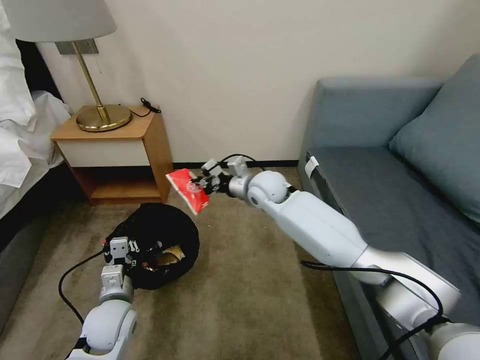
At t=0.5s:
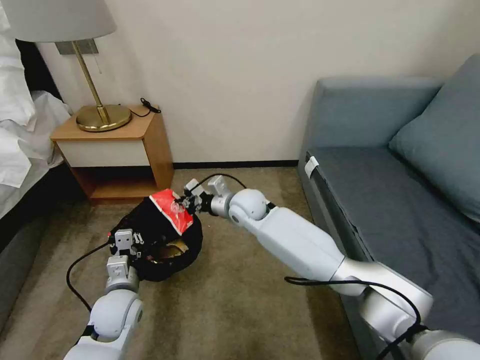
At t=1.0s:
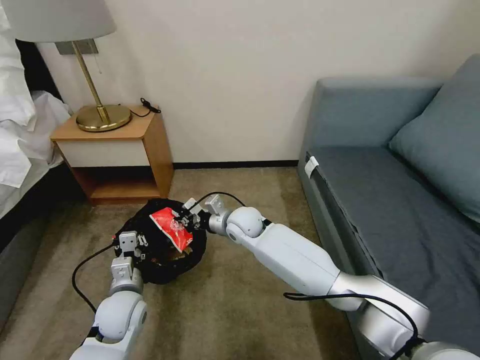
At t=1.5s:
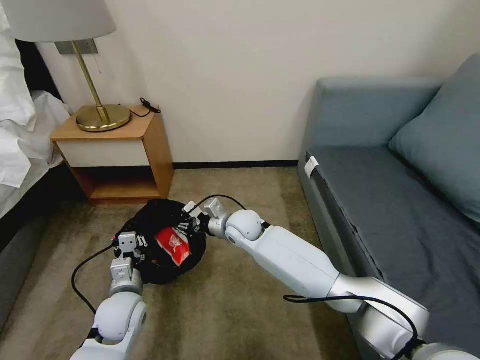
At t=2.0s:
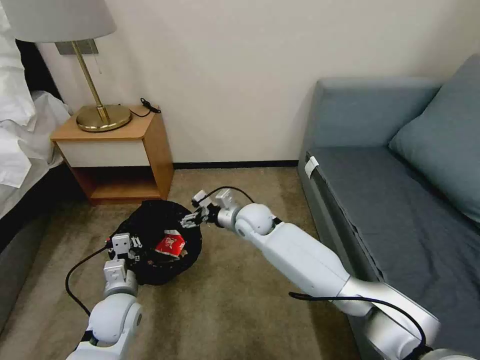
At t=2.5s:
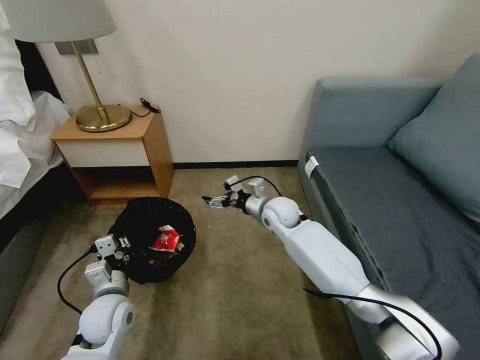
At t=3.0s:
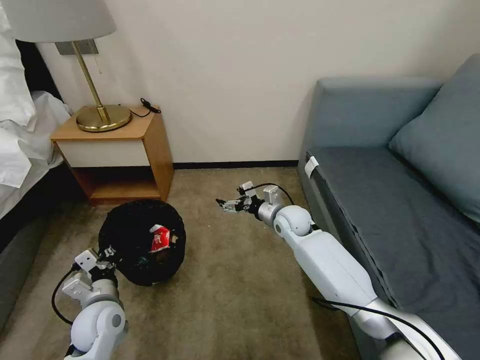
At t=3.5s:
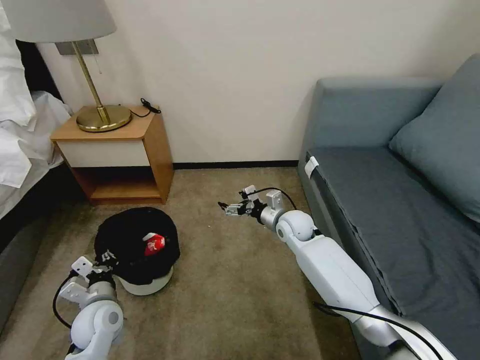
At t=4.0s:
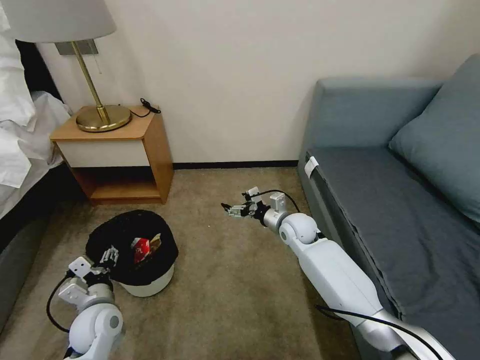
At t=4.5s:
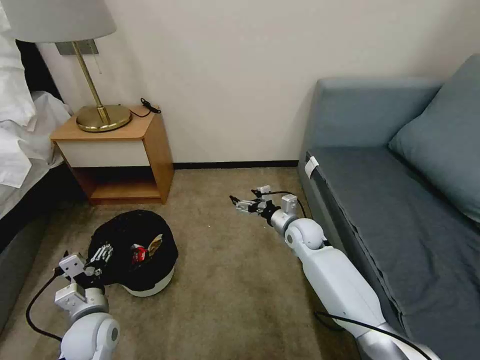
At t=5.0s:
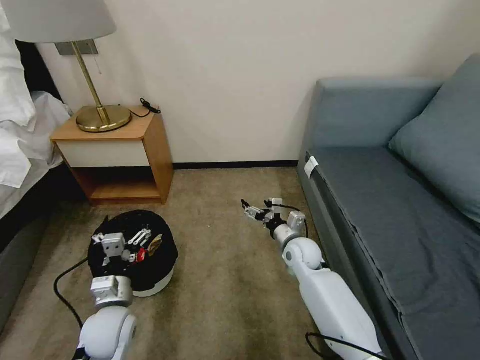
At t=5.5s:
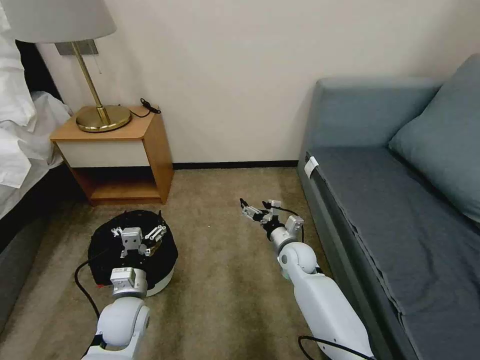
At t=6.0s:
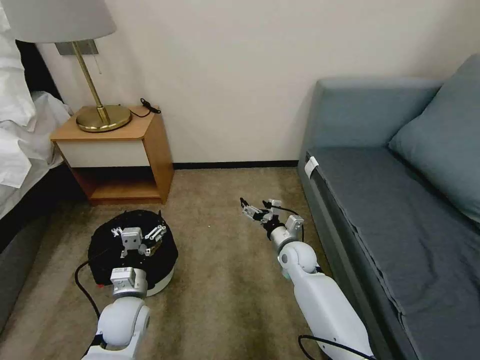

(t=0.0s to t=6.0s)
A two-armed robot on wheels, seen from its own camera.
Task of the whole recording: Pick up the trash bin, then pick up the garbage on the floor and place it into the trash bin.
t=0.0s - t=2.0s: The right gripper moves downward, roughly 10 cm, and opens its fingers.
t=2.0s - t=4.0s: The right gripper travels to the right by approximately 15 cm, while the left gripper changes place by roughly 5 cm, and opens up.
t=4.0s - t=6.0s: The right gripper goes about 10 cm backward and downward; the left gripper travels to the right by about 5 cm.

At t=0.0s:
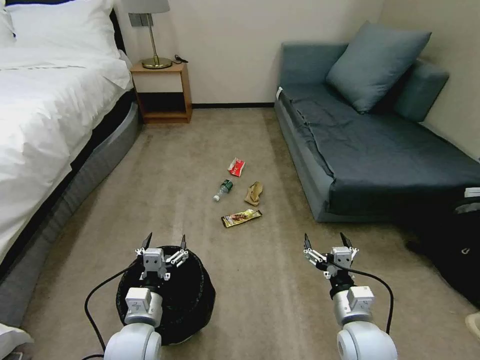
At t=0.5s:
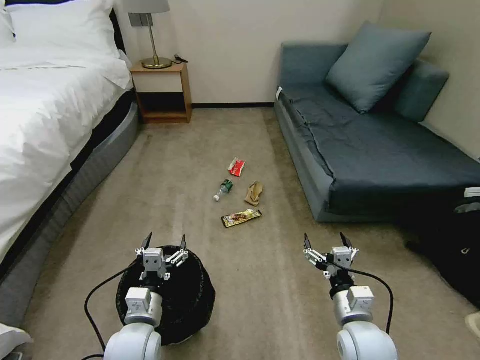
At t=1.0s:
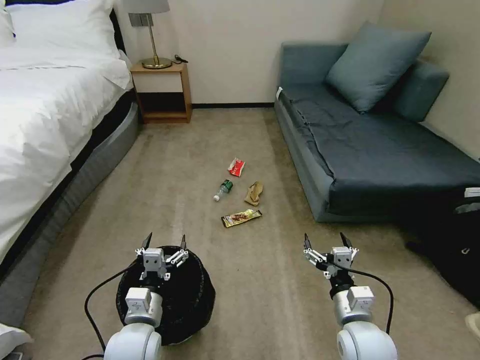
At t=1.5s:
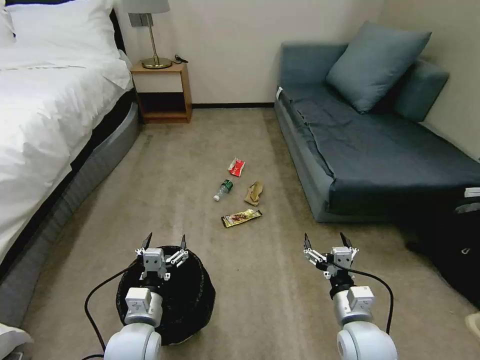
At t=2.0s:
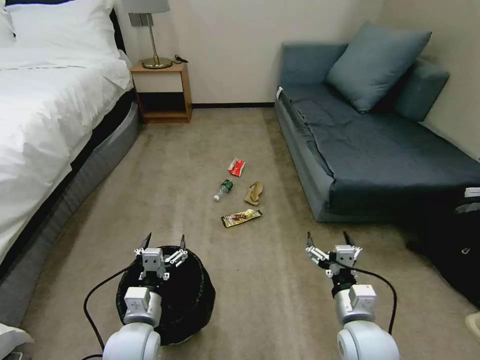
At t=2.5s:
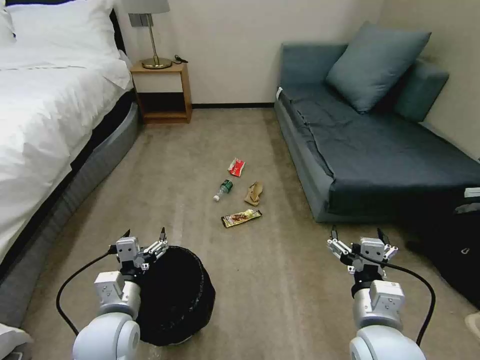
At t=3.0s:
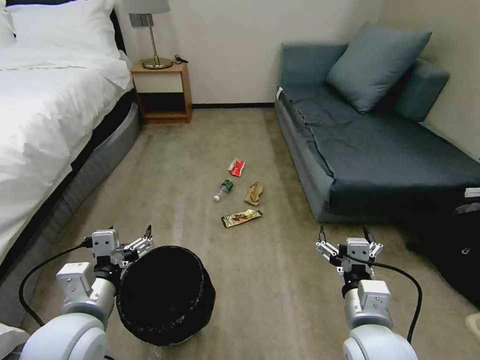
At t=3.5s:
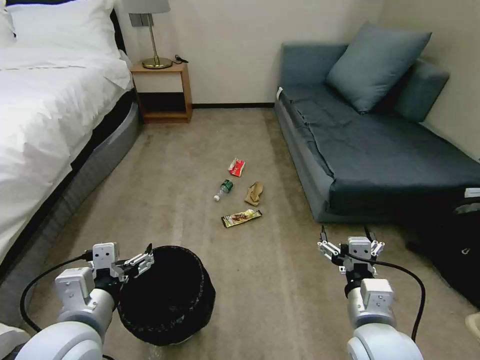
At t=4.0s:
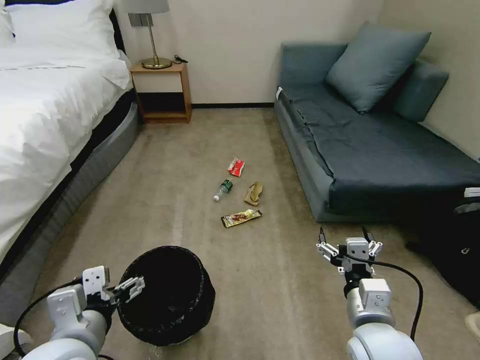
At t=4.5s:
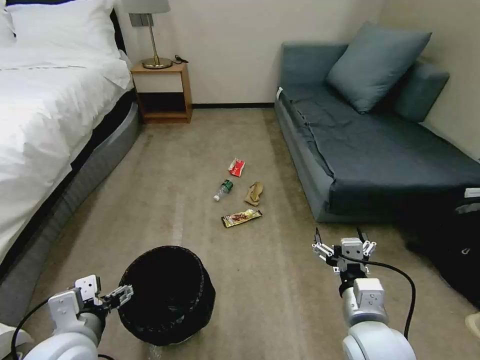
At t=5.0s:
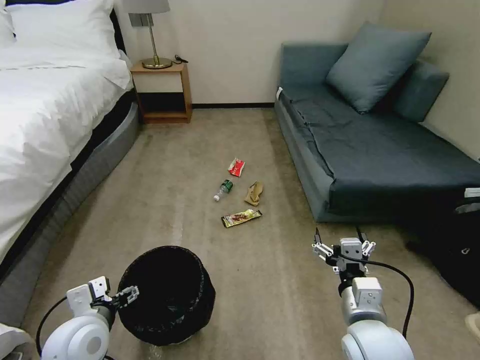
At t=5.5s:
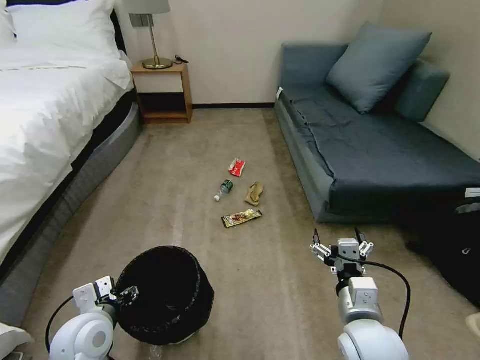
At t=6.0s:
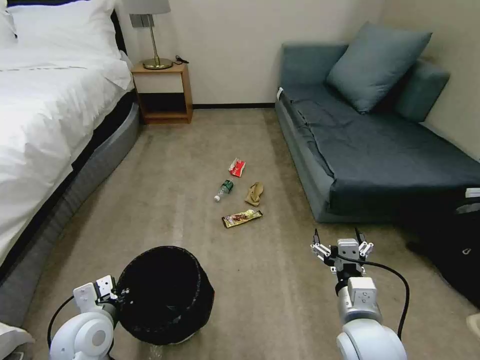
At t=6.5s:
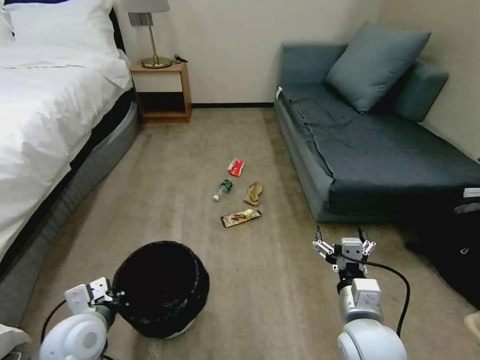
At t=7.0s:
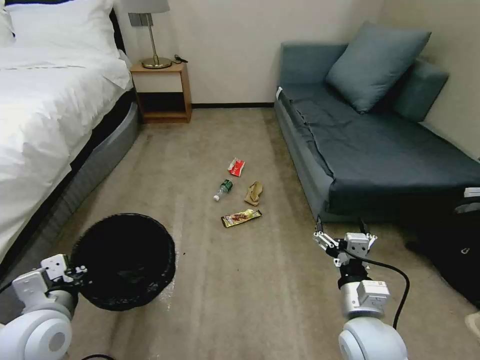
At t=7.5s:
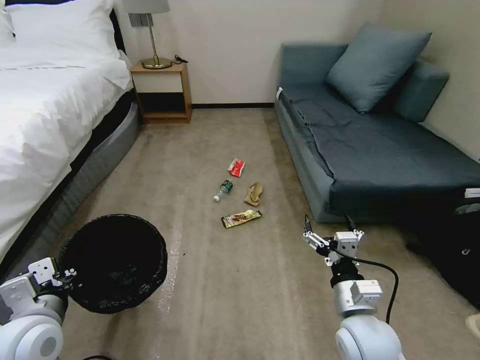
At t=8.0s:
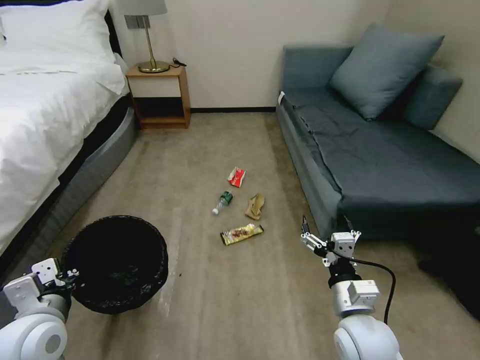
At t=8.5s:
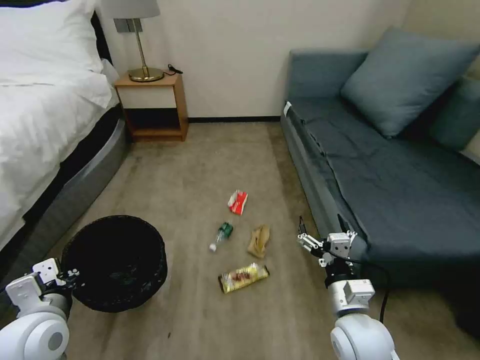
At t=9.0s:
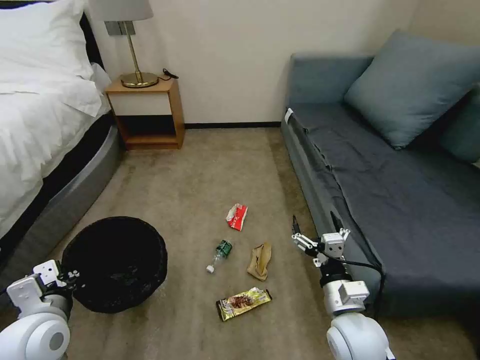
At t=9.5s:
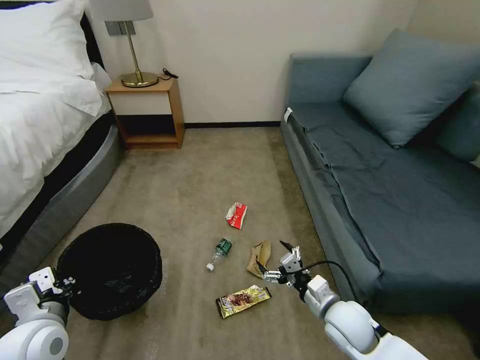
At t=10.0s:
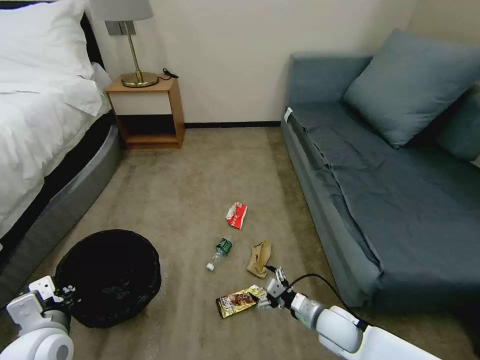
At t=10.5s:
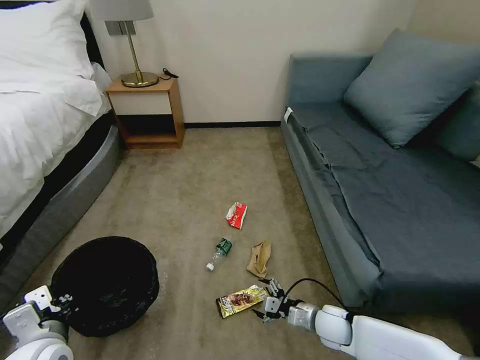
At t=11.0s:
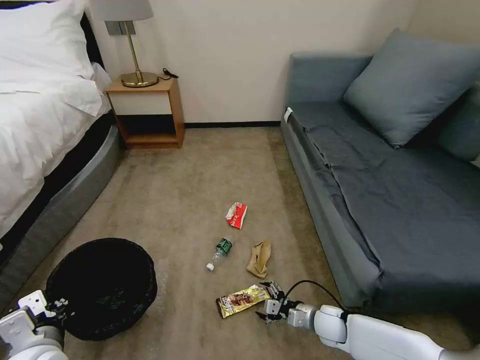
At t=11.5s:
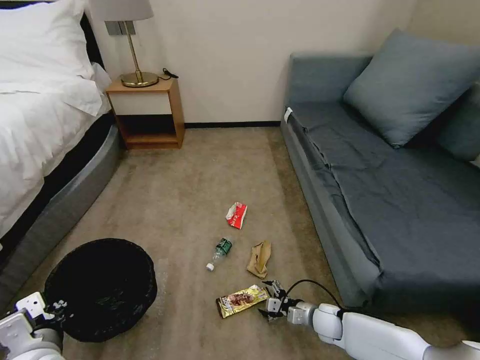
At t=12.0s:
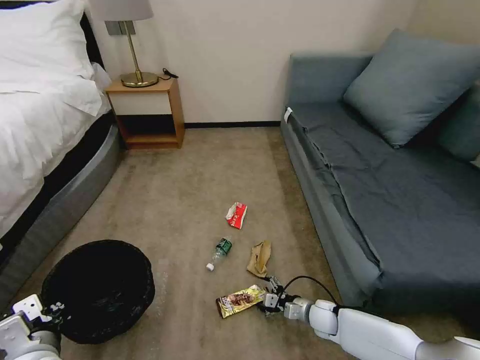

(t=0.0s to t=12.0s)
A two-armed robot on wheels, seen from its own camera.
Task of the whole recording: Pick up the trash bin, then pick up the garbage on the floor and place it into the trash bin.
t=2.0s - t=4.0s: The right gripper shifts some 10 cm upward. Meanwhile the left gripper is displaced upward by approximately 15 cm.
t=4.0s - t=6.0s: The left gripper shifts about 15 cm downward and forward, and closes its fingers.
t=6.0s - t=8.0s: The left gripper is displaced upward by roughly 10 cm.
t=8.0s - t=10.0s: The right gripper travels downward by approximately 15 cm.
t=10.0s - t=12.0s: The right gripper is displaced downward and forward by some 15 cm.

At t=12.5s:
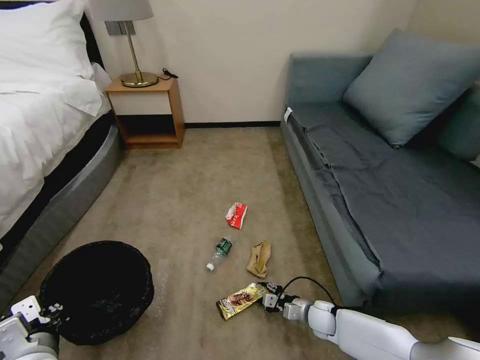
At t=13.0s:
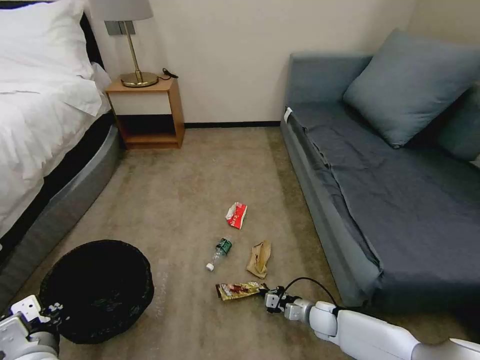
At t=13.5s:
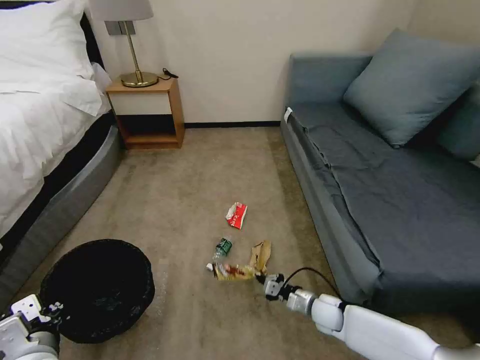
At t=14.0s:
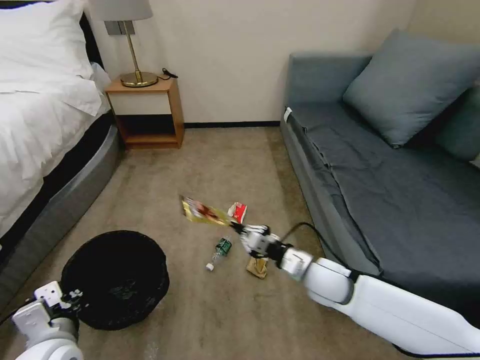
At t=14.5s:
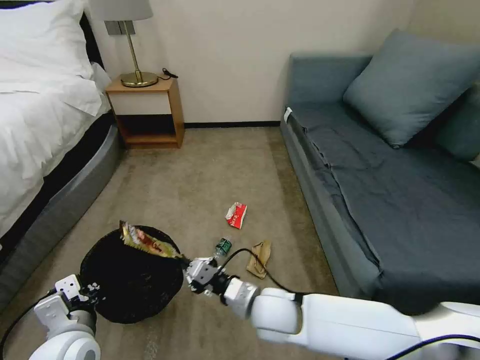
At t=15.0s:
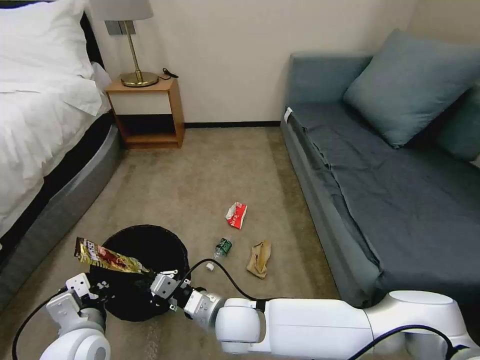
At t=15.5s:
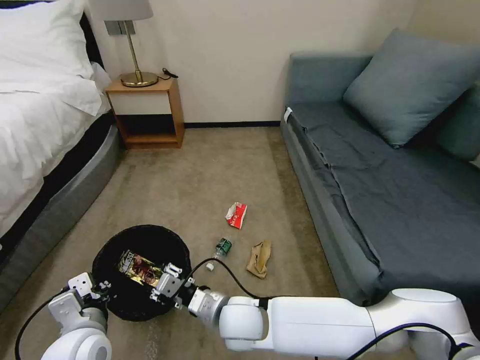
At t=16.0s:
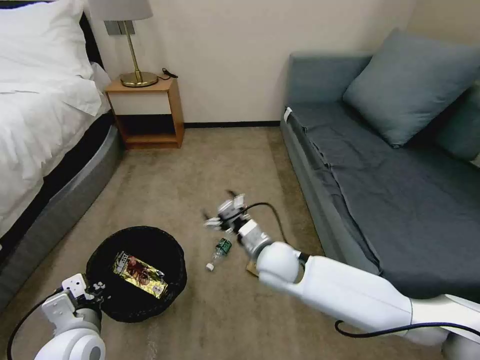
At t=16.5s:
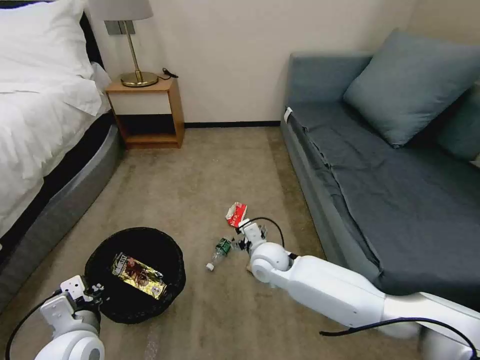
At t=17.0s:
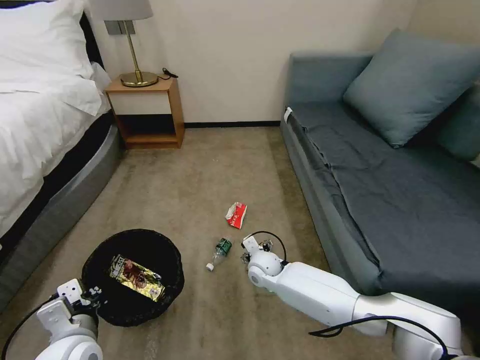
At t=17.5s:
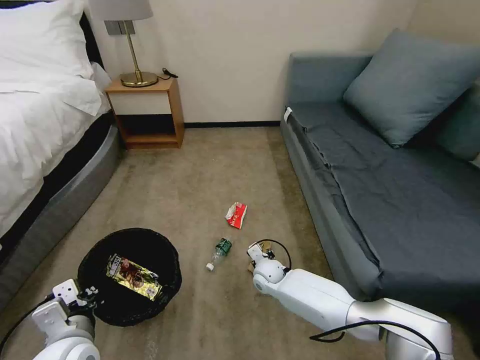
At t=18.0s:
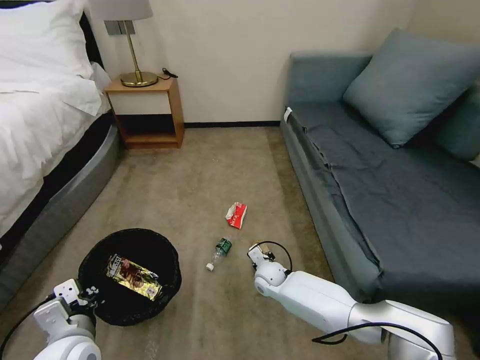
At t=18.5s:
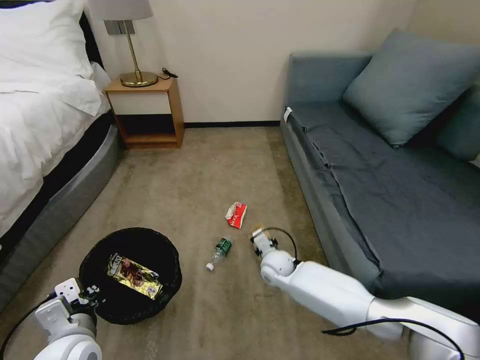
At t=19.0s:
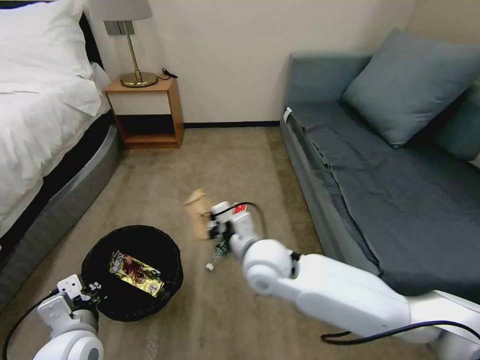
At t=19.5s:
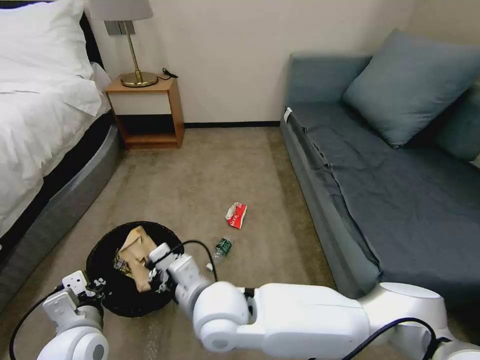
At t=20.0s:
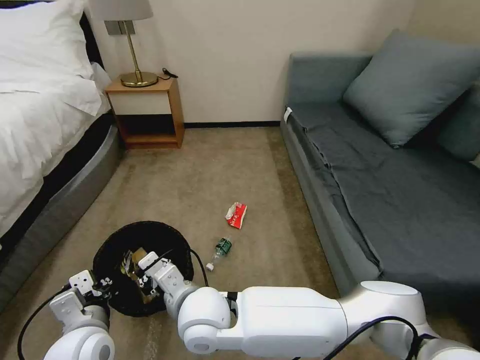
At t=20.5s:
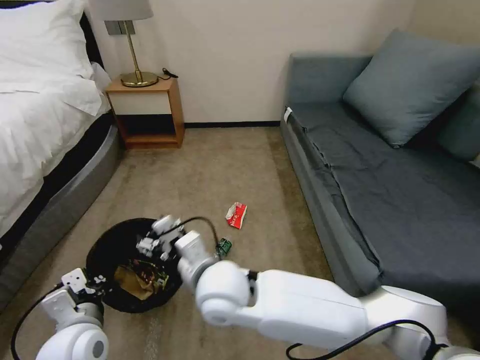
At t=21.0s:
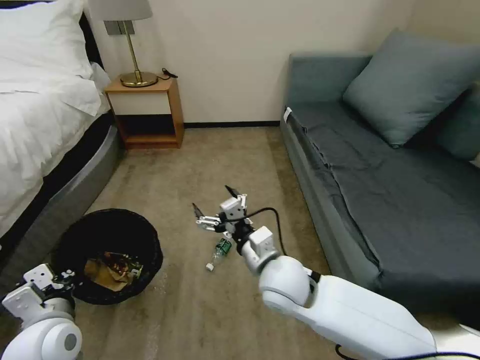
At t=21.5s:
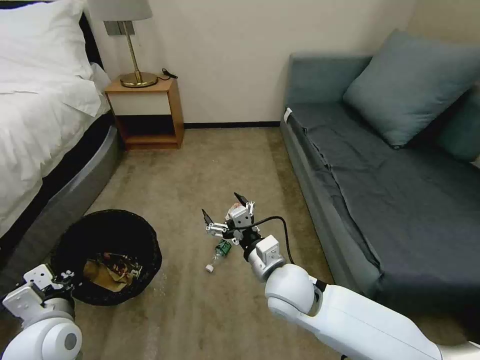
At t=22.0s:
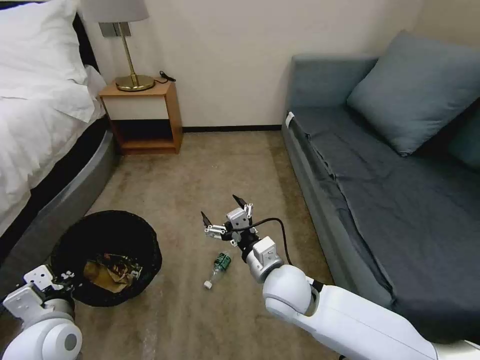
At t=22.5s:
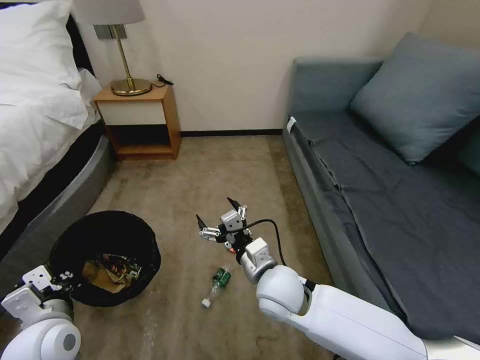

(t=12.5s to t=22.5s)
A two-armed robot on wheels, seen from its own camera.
Task of the whole recording: Pick up the trash bin, then pick up the garbage on the floor and place it into the trash bin.
t=12.5s - t=14.5s: The right gripper shifts about 30 cm upward and to the left, and closes; the left gripper shifts by about 5 cm.
t=14.5s - t=16.5s: The right gripper travels forward by roughly 15 cm, and opens its fingers.
t=16.5s - t=18.5s: The right gripper heads downward, covering roughly 10 cm, and closes.
t=18.5s - t=20.5s: The right gripper travels upward, backward and to the left by some 30 cm, and opens up.
t=20.5s - t=22.5s: The right gripper travels to the right and downward by about 15 cm.
